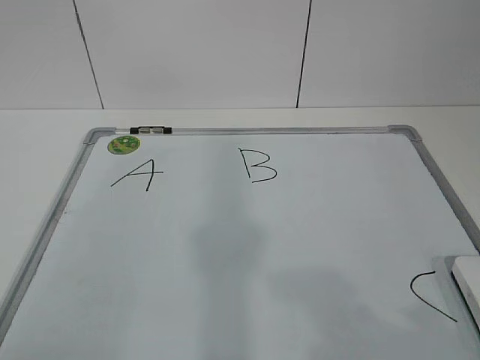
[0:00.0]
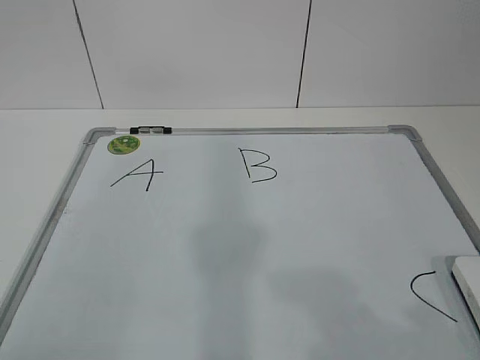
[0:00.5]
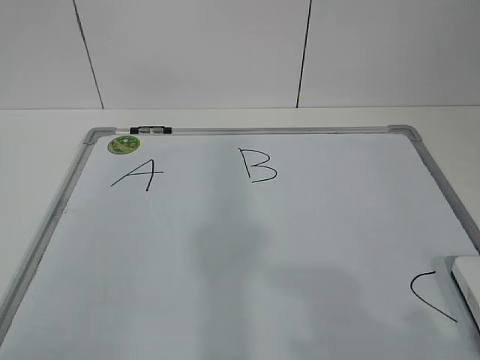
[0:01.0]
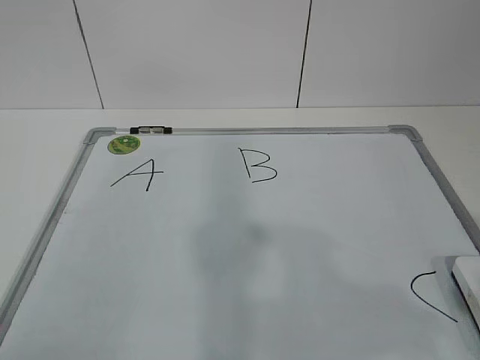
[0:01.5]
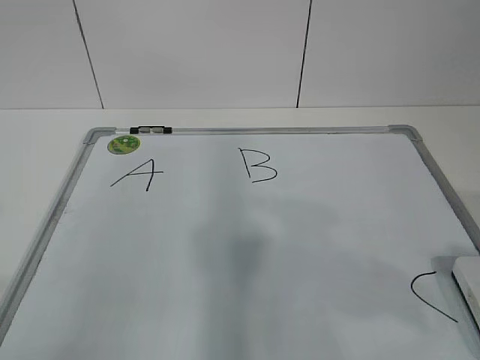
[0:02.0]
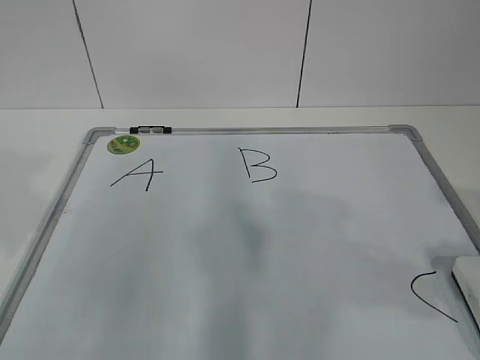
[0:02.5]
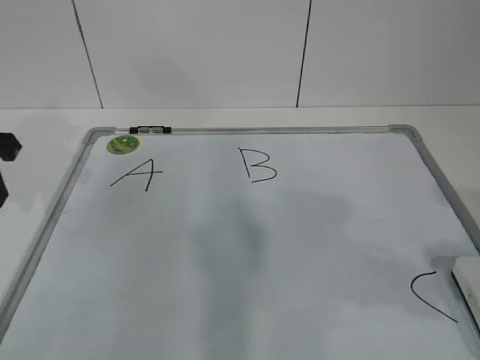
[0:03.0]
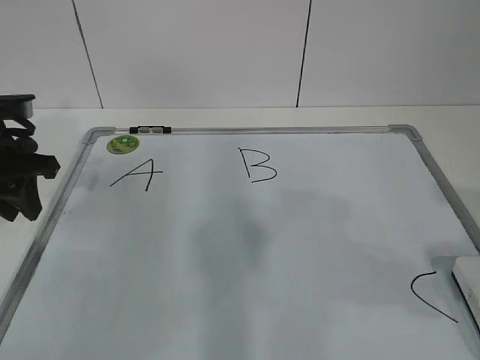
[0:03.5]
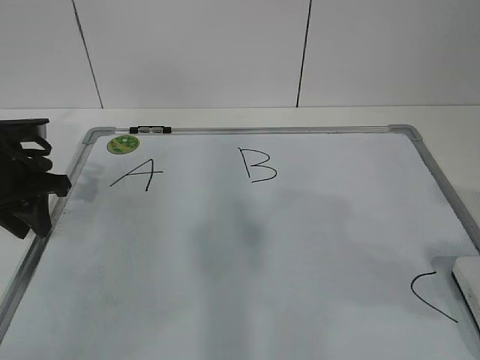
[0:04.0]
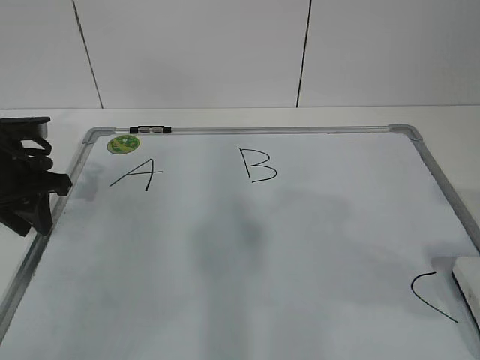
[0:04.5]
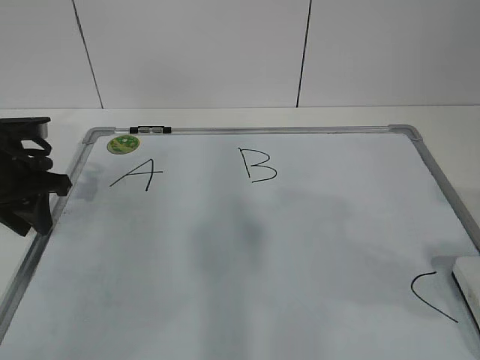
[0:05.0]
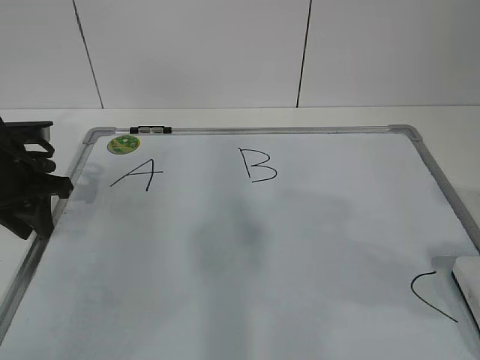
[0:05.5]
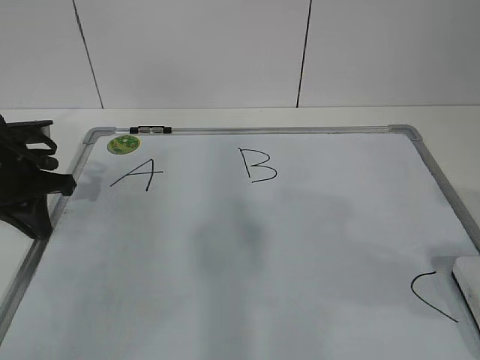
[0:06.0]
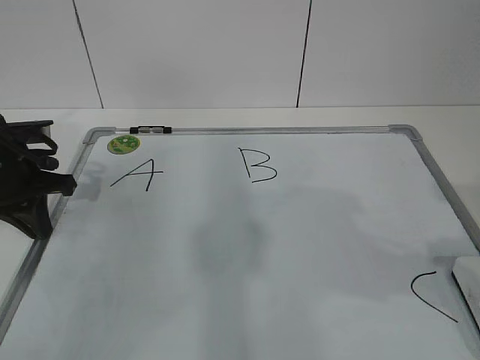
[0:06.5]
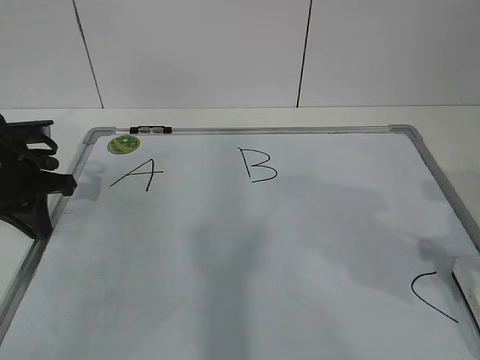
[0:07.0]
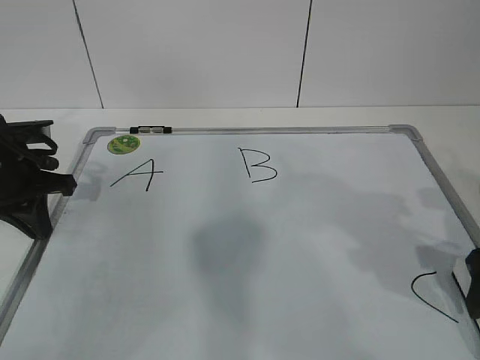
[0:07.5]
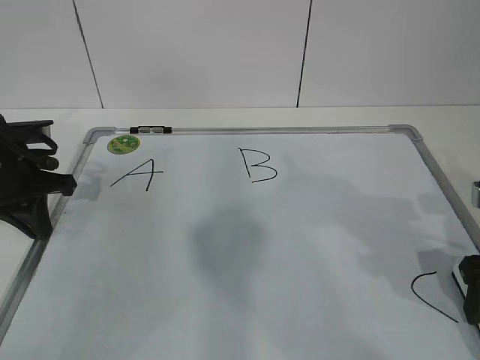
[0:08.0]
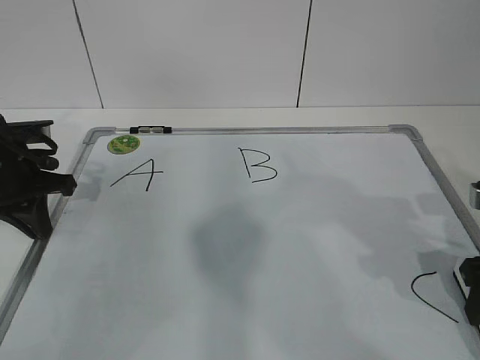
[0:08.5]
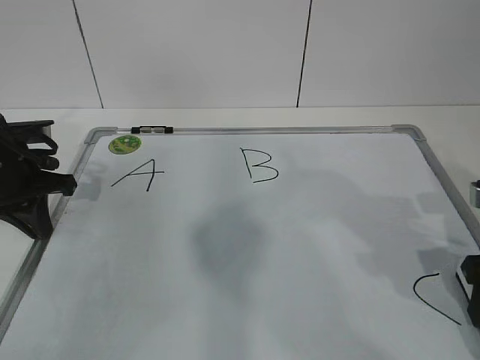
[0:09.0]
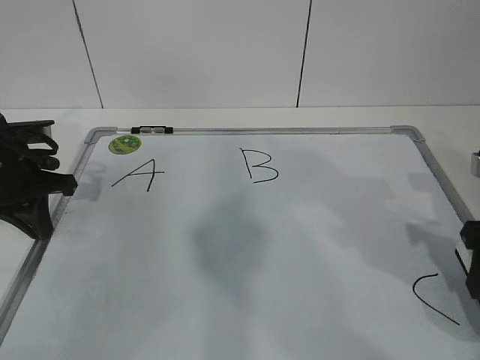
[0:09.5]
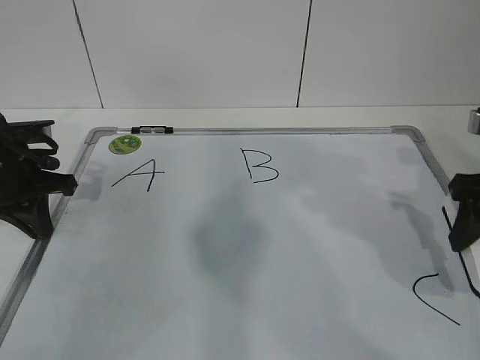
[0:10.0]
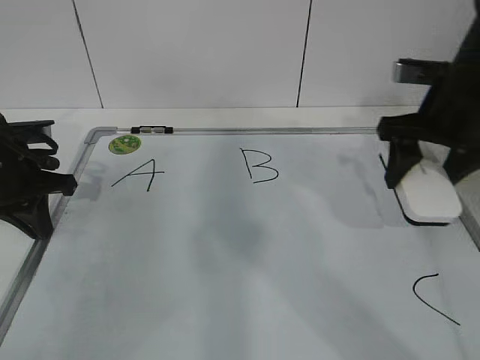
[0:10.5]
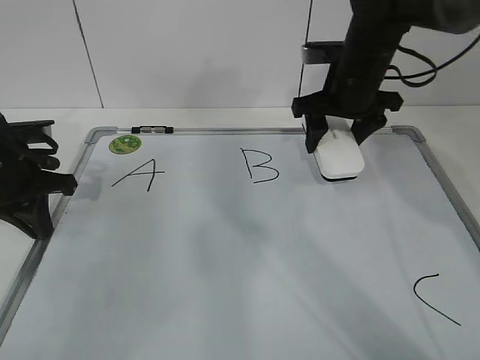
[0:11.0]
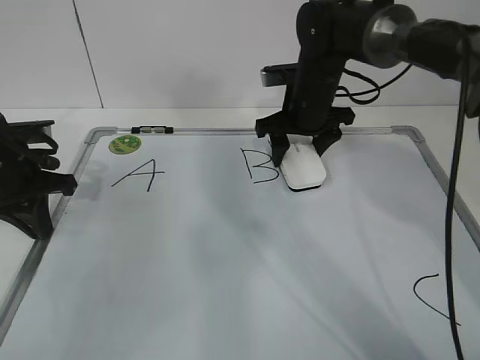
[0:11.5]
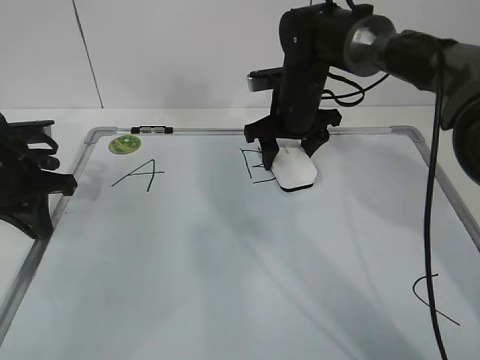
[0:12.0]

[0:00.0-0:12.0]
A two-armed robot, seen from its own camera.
Task of the whole recording: pick up the eraser on the blackboard and erase the letter "B".
Step, 0:00.0 to 0:04.5: Hold the drawing board steady with your left hand.
0:02.0 to 0:04.0: The left gripper shifts roughly 35 cm forward and downward.
0:04.0 to 0:06.0: The left gripper closes up.
0:06.0 to 0:08.0: The right gripper shifts approximately 15 cm forward and downward.
0:08.0 to 0:10.0: The right gripper goes some 5 cm upward, and closes up.
0:10.0 to 0:12.0: The right gripper heads forward and to the left, covering approximately 30 cm.

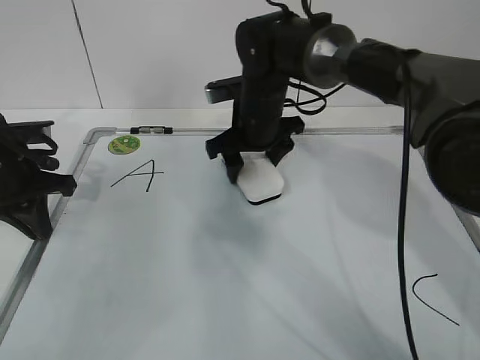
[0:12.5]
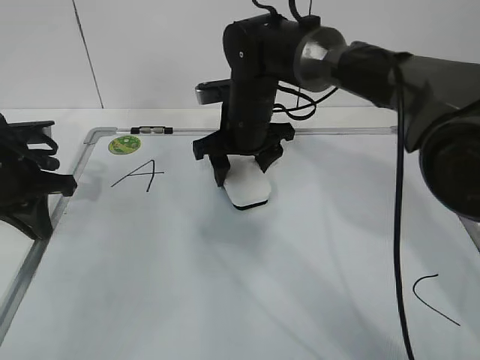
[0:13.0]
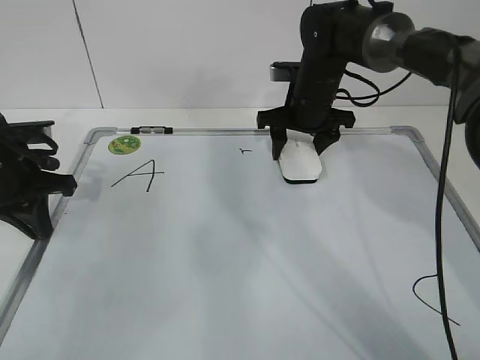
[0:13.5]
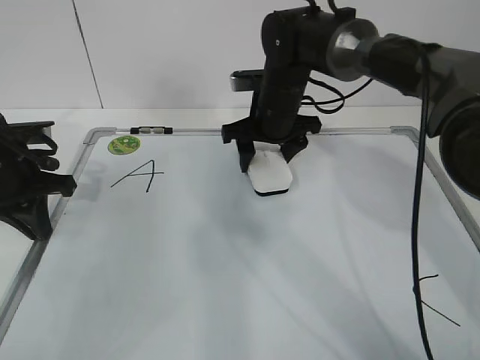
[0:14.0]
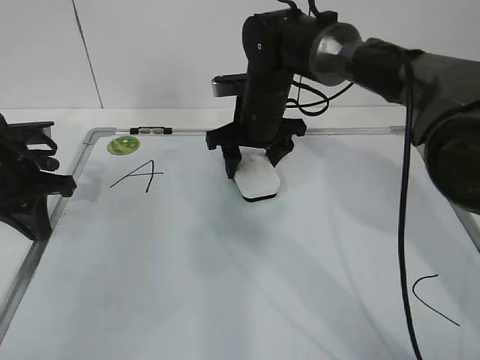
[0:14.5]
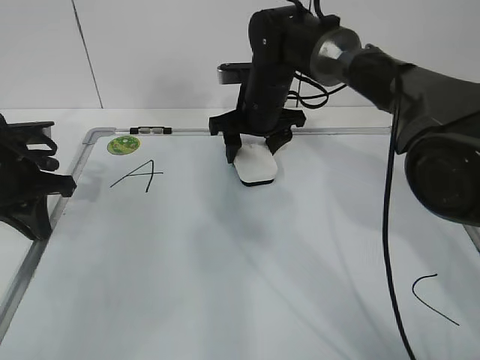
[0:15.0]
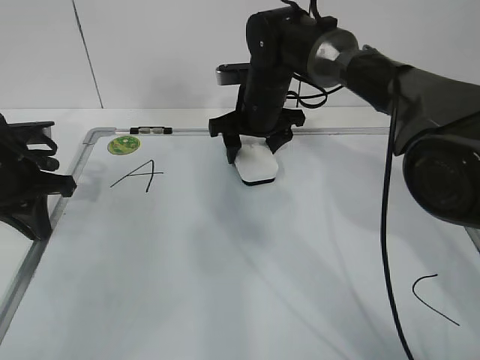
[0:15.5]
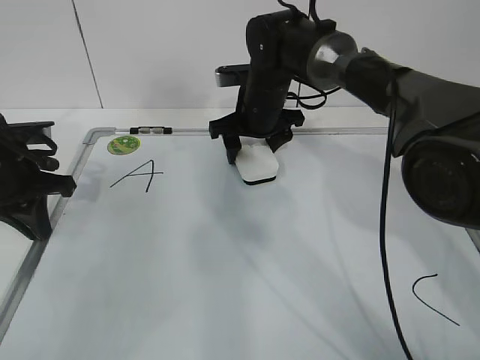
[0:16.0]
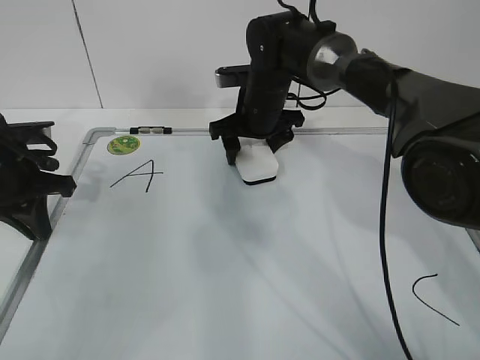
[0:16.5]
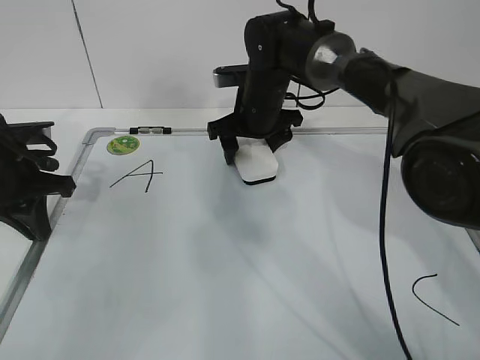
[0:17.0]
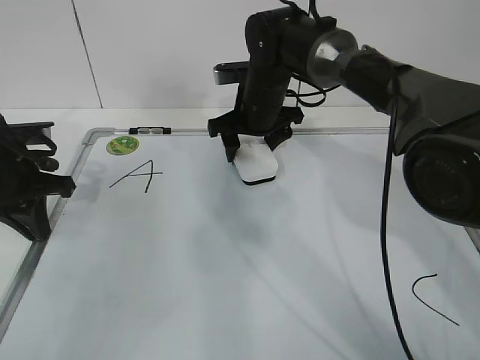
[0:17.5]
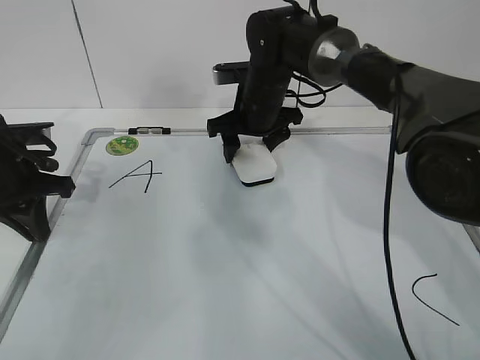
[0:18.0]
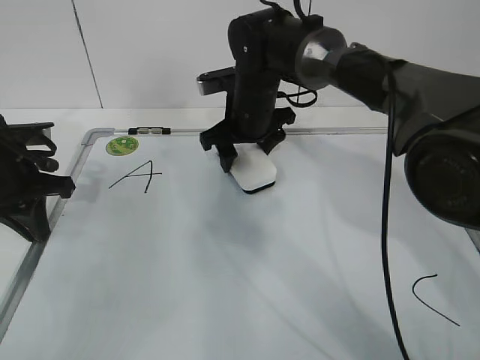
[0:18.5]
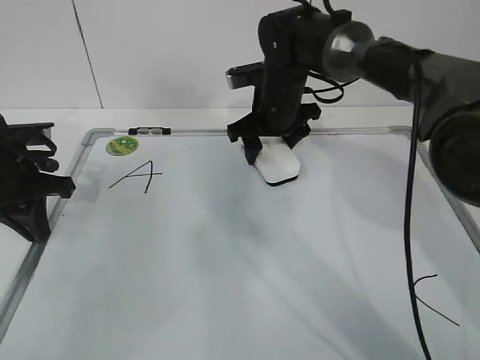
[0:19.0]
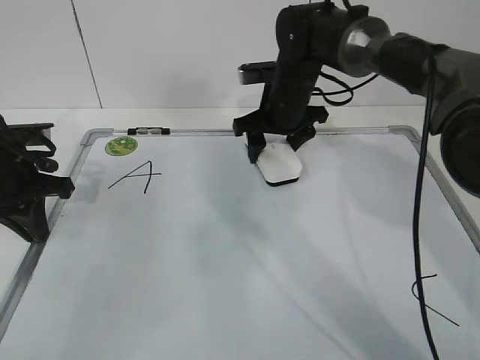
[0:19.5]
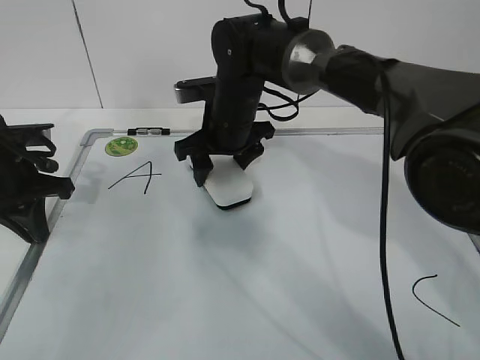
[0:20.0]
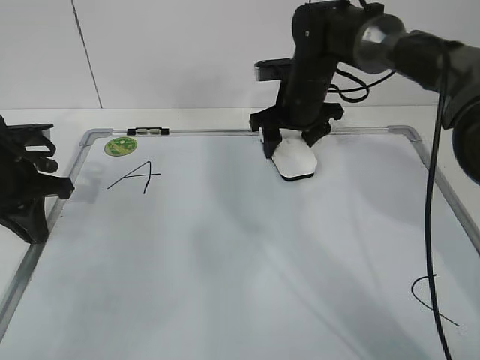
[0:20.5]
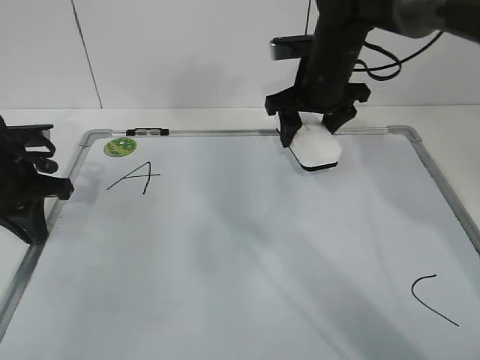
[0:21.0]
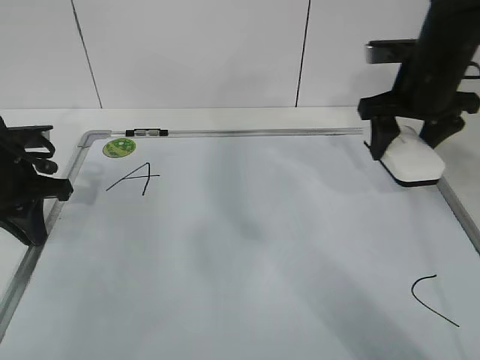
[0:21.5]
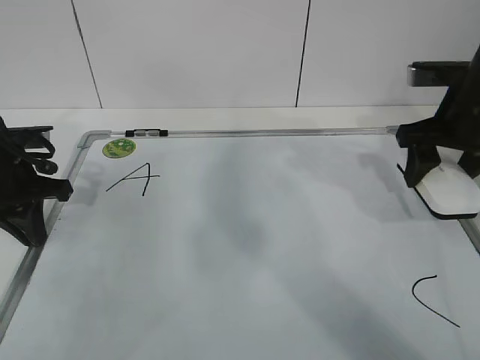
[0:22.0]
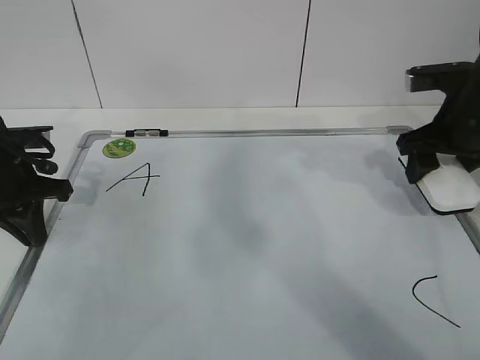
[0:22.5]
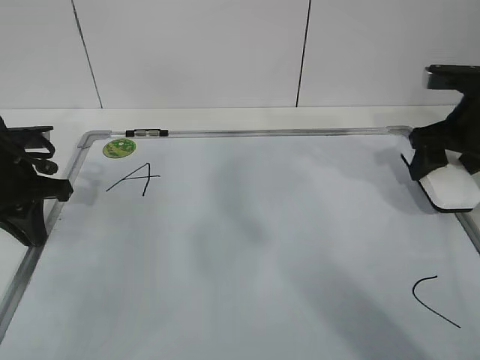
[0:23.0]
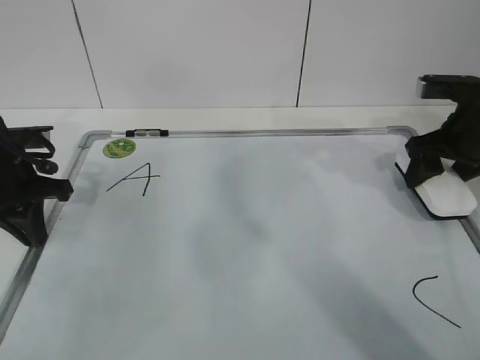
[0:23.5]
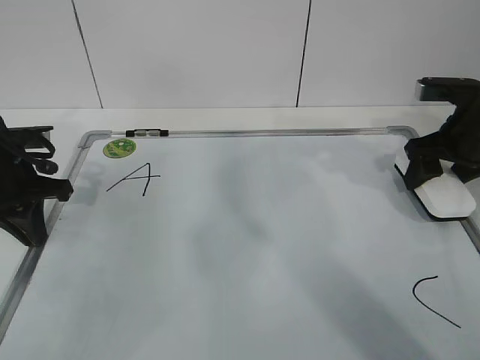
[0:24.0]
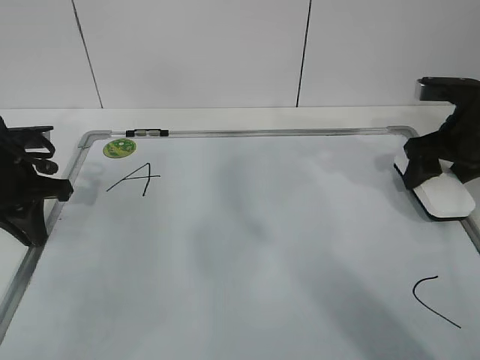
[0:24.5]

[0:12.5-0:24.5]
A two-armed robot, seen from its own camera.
Task of the whole recording: pick up the eraser on the blackboard and erase the letter "B".
Step, 0:12.5 to 0:17.0: Erase the letter B with your right hand.
Step, 0:17.5 to 0:20.5: Put down the eraser with your right hand.
0:12.5 to 0:14.5: The right gripper moves roughly 10 cm to the right and comes back.
0:14.5 to 0:16.5: The right gripper opens.
0:16.5 to 0:18.5: The right gripper closes.
0:18.5 to 0:20.5: The right gripper moves left and right over approximately 10 cm, changing direction 2 times.
0:20.5 to 0:22.5: The right gripper heads to the right and backward, covering approximately 20 cm.
0:22.5 to 0:24.5: There are only small adjustments of the grippers.

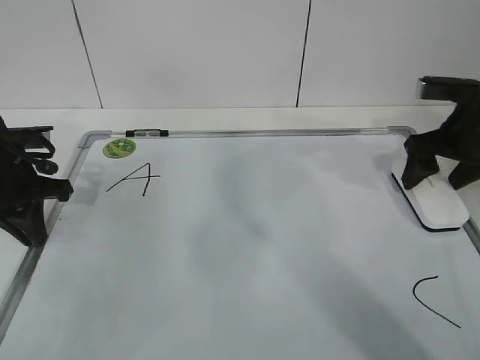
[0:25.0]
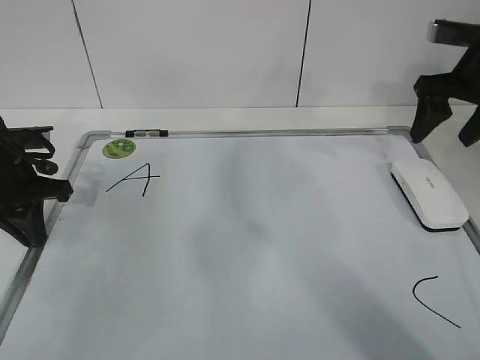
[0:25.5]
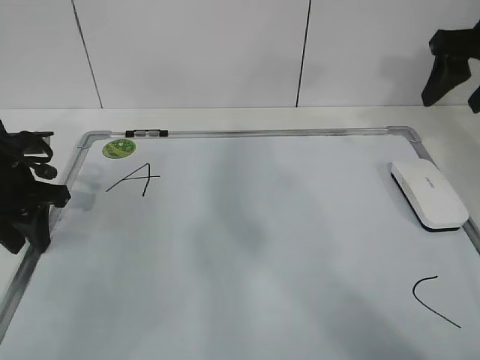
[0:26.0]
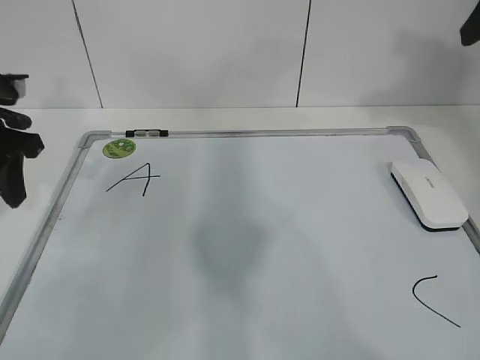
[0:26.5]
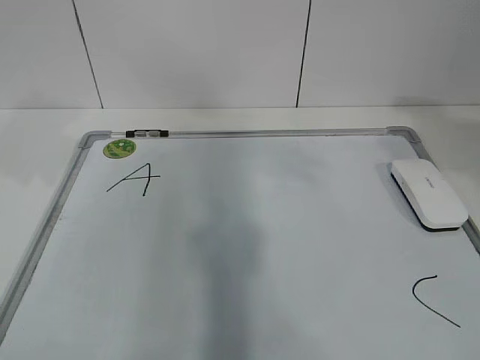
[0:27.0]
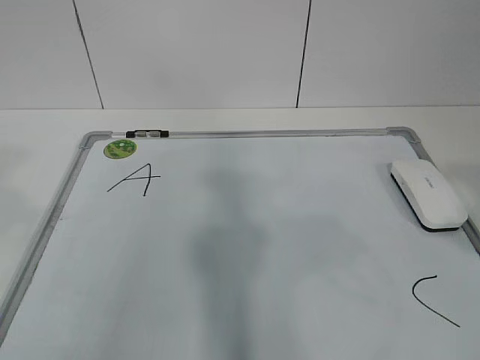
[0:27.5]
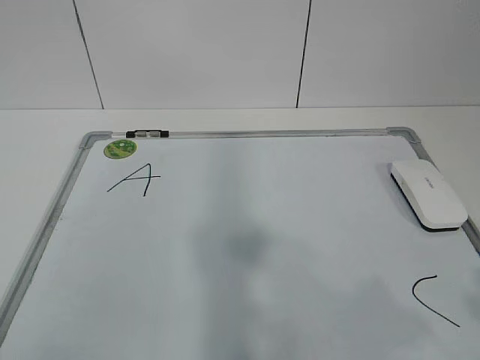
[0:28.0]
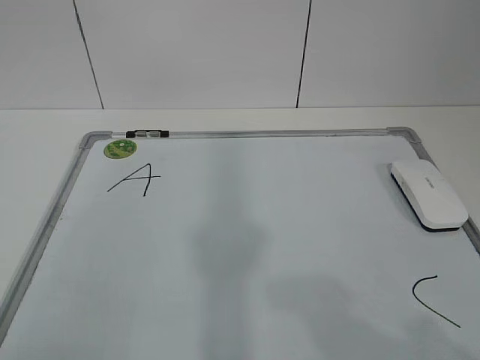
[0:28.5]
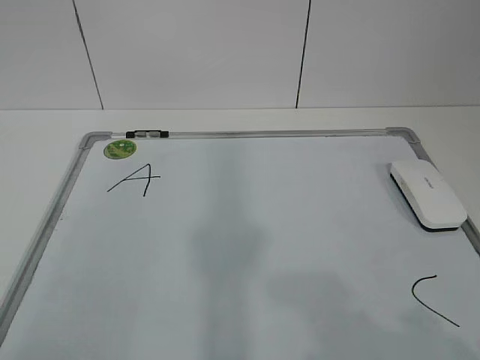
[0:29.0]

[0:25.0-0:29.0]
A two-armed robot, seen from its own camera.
Task of the whole recording: pick up the eraser on the blackboard and erase the letter "B".
0:25.0 to 0:27.0: Both grippers move upward and backward, roughly 25 cm. The right gripper closes, while the left gripper opens.
0:27.0 to 0:29.0: The right gripper moves backward and downward, approximately 25 cm, while the left gripper moves backward, about 25 cm.
